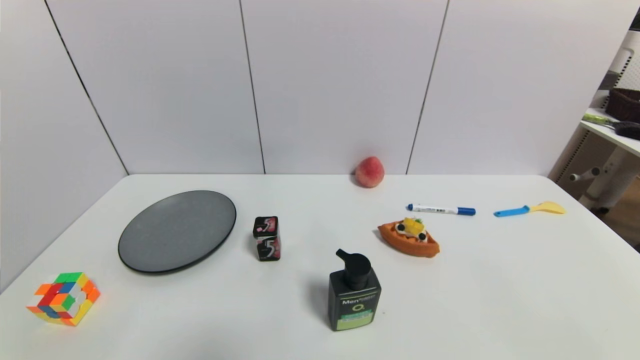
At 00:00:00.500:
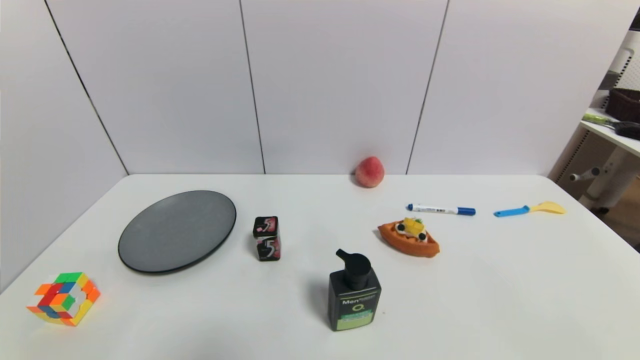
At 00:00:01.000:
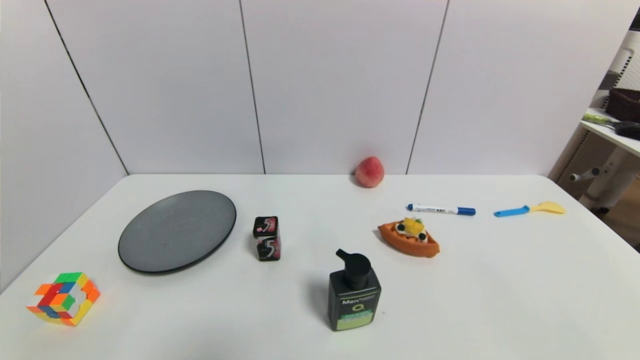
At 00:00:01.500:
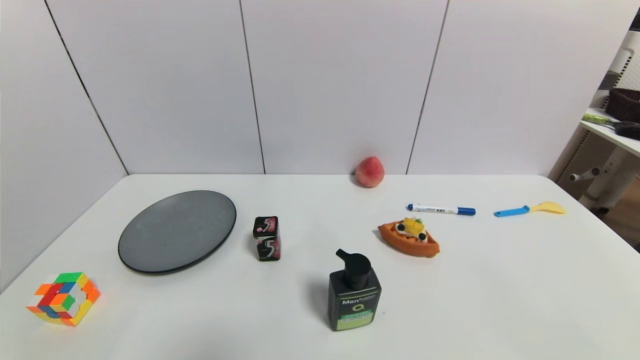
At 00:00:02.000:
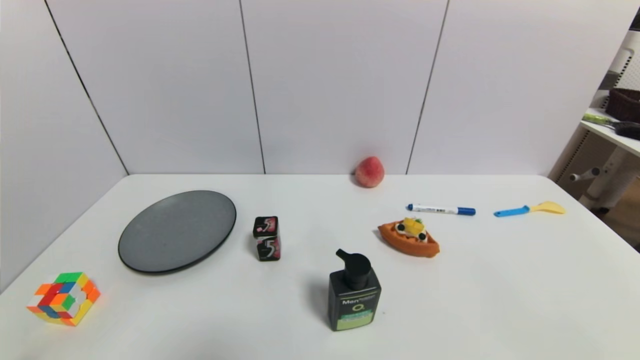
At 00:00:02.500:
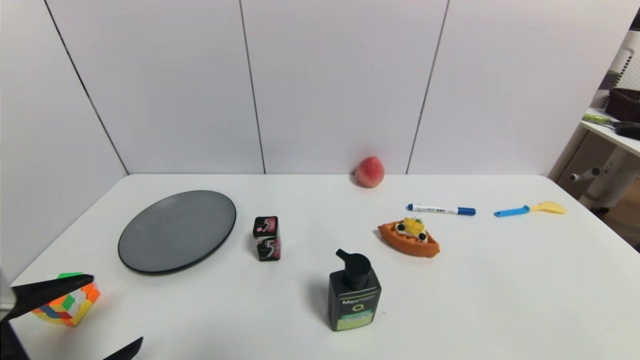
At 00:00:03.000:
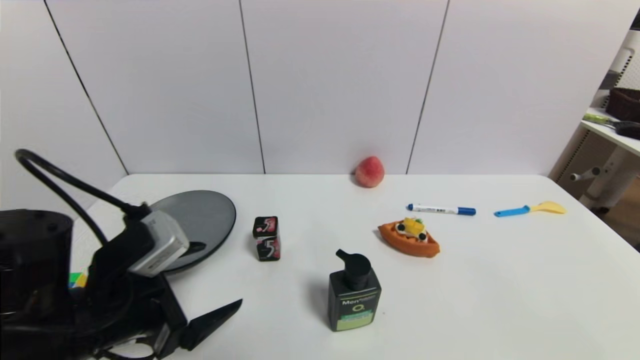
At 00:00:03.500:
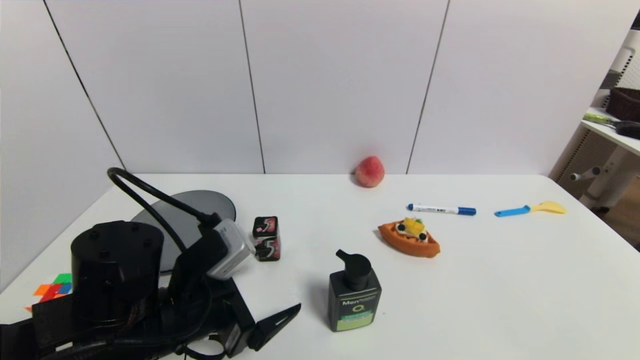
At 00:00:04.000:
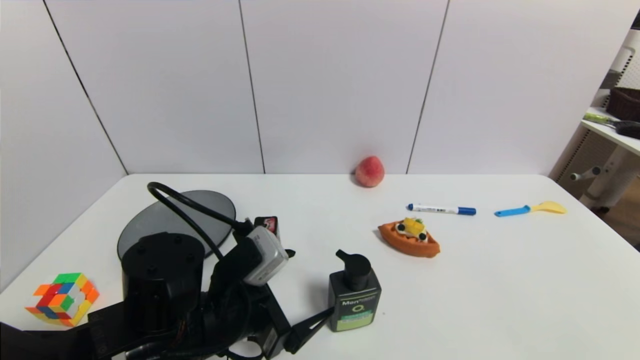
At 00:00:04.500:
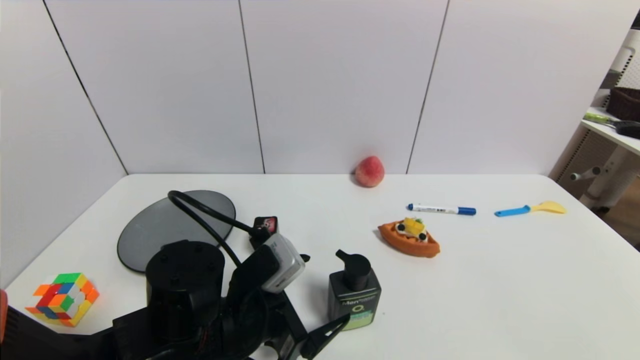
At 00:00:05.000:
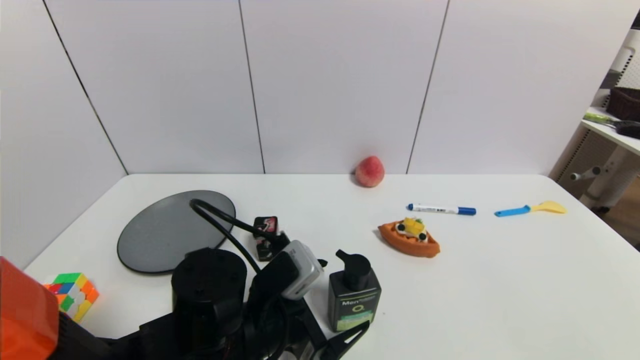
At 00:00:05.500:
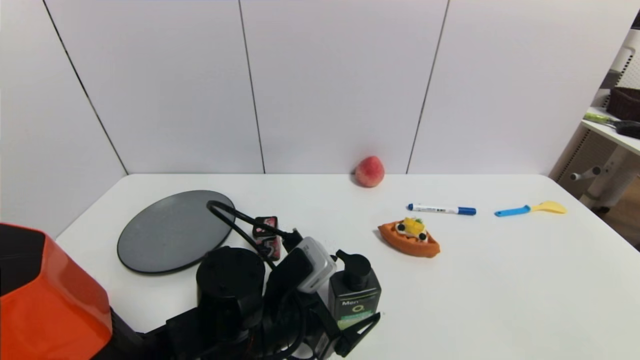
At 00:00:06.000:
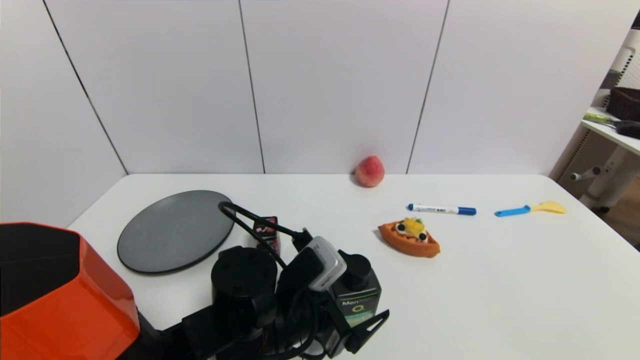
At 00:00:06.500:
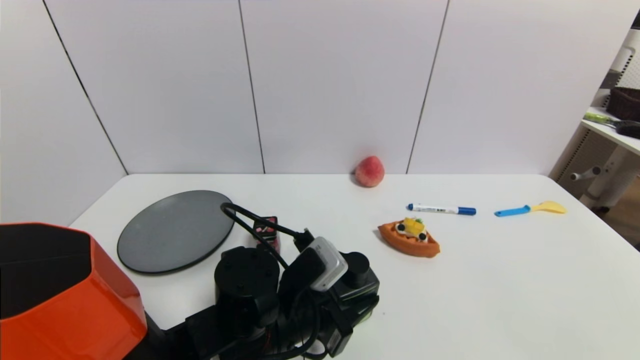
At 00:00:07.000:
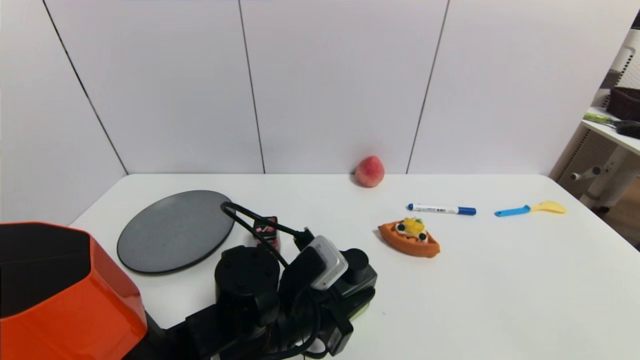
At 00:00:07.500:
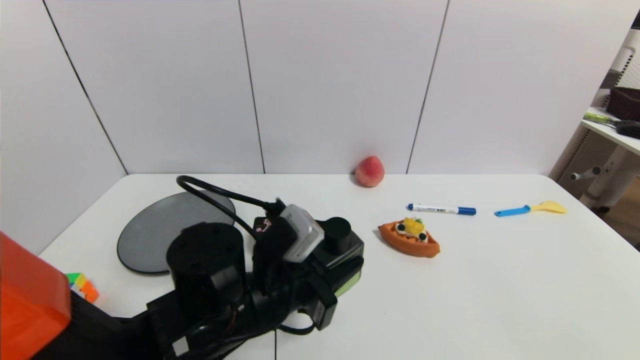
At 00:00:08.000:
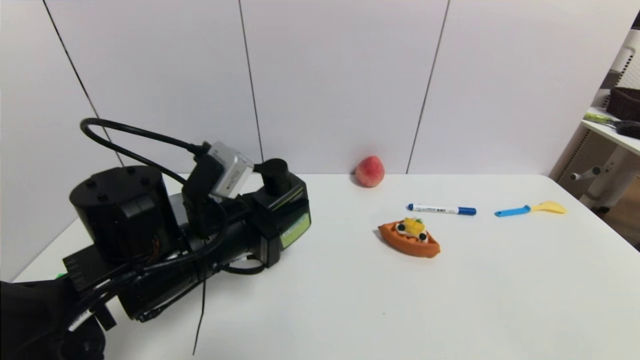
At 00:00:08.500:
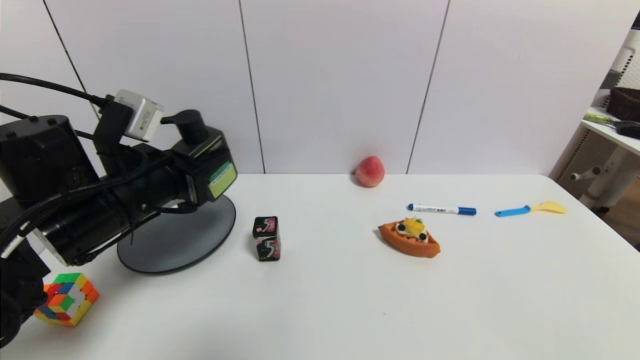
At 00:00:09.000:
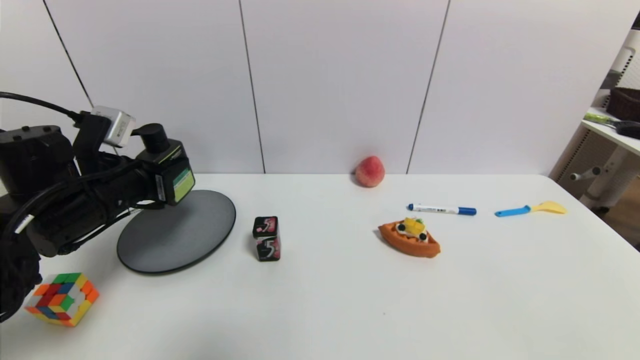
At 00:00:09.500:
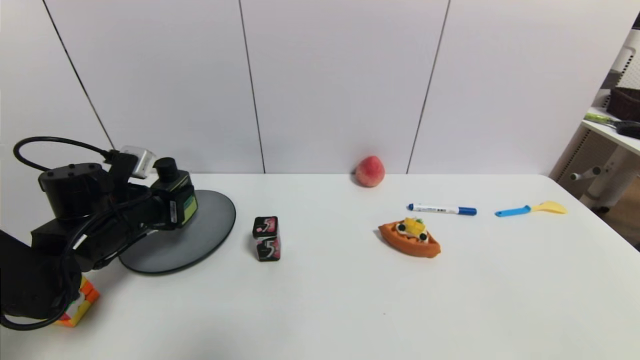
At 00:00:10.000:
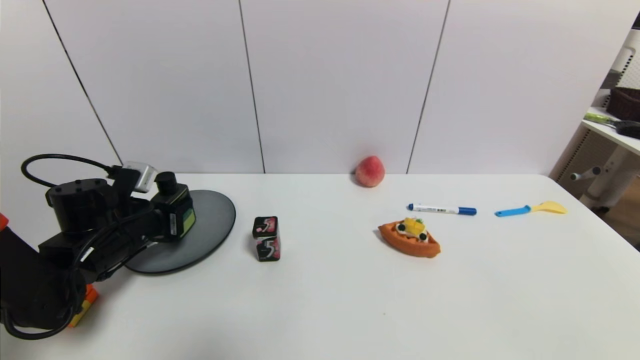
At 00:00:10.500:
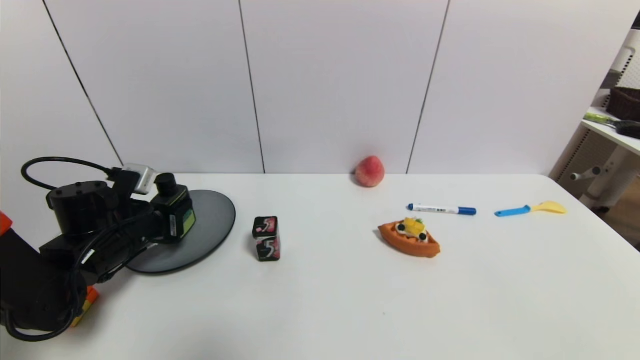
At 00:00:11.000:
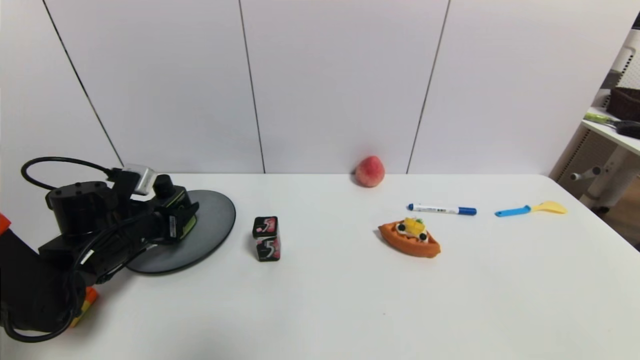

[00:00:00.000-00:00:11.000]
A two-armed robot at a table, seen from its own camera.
Task of the whole recording: use a gripper to pick the target object and place on the gray plate.
Step, 00:00:00.000 to 00:00:06.500: Grasp the hard facial cleanser with the left gripper.
00:00:02.000 to 00:00:03.500: The left gripper travels forward and to the right by some 25 cm.
00:00:03.500 to 00:00:05.500: The left gripper shifts about 10 cm to the right.
00:00:05.500 to 00:00:07.500: The left gripper closes.
00:00:07.500 to 00:00:09.000: The left gripper travels to the left by approximately 20 cm.
00:00:09.000 to 00:00:11.000: The left gripper is displaced downward by some 10 cm, and opens its fingers.

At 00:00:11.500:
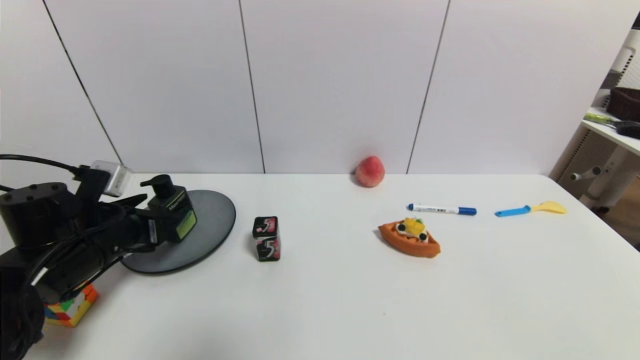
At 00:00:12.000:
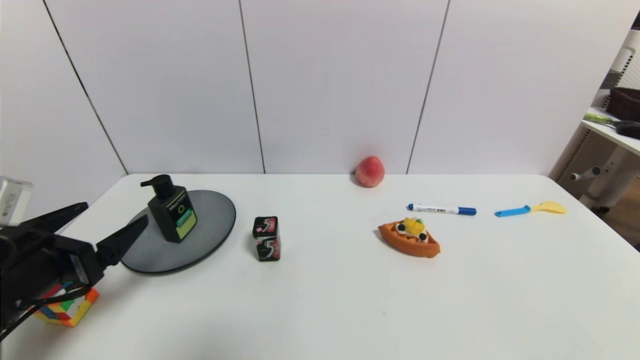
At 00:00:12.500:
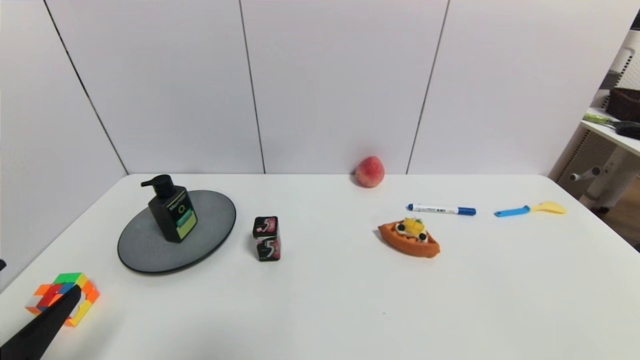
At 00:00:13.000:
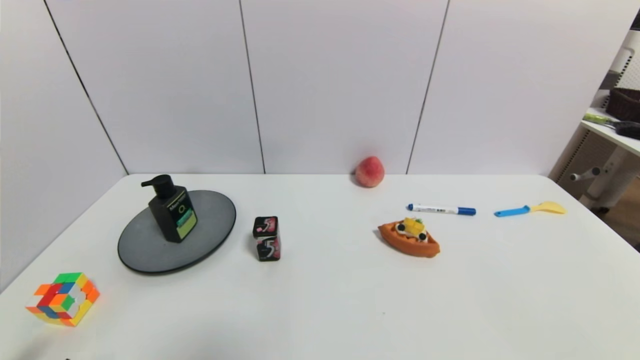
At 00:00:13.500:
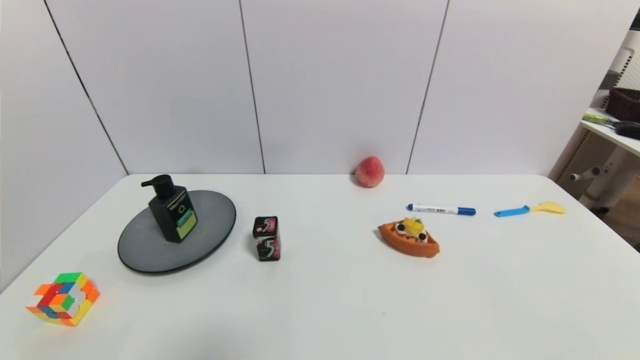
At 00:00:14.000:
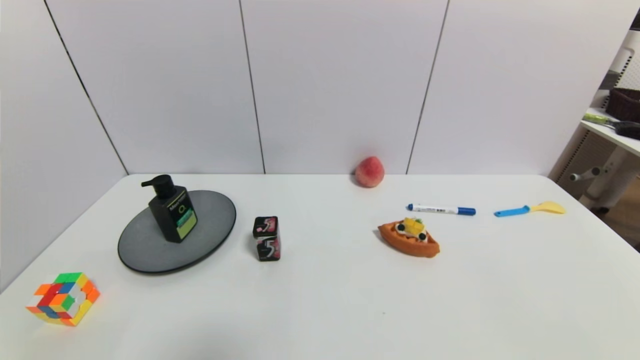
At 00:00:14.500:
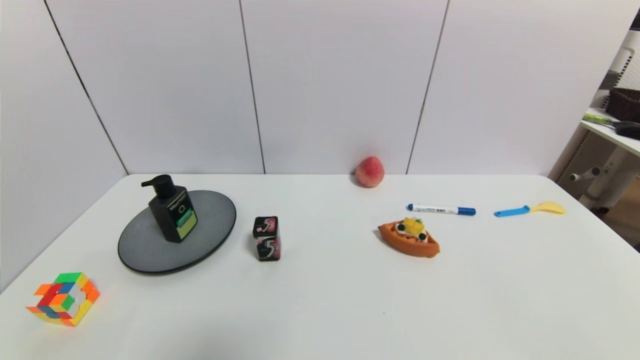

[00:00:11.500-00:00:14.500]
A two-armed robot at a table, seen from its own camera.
Task of the whole recording: use a gripper to pick the target object and place on the gray plate.
00:00:11.500 to 00:00:13.000: The left gripper heads backward, covering some 25 cm.
